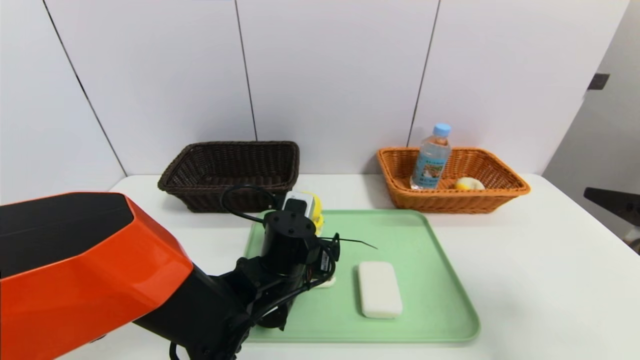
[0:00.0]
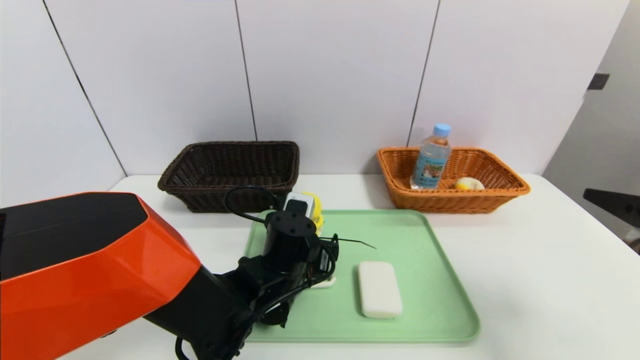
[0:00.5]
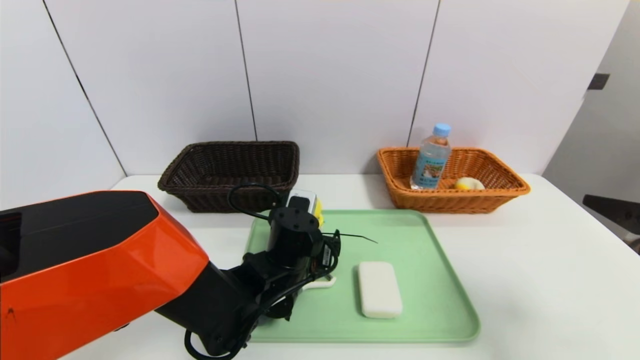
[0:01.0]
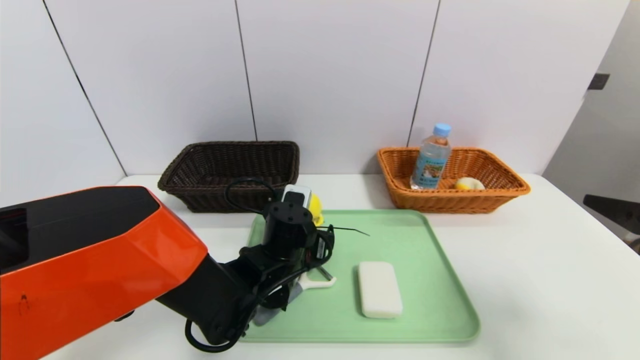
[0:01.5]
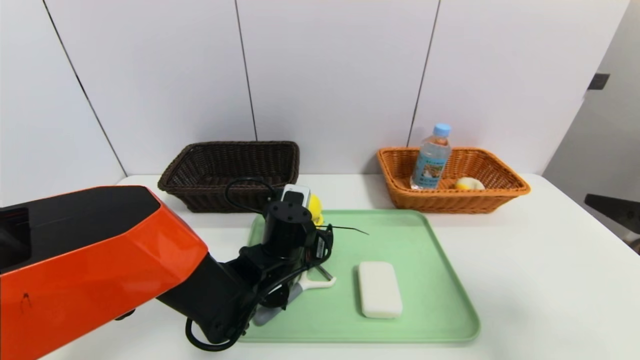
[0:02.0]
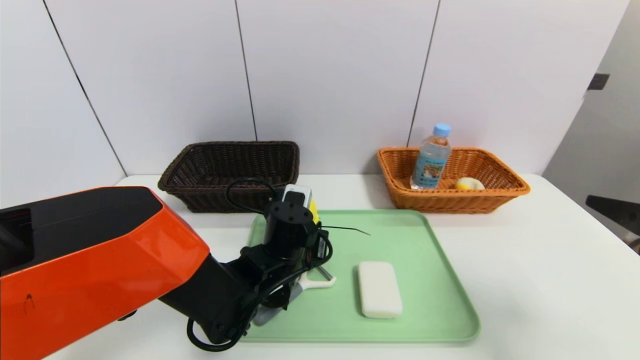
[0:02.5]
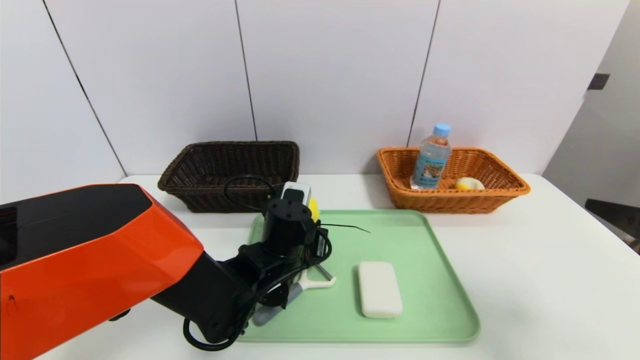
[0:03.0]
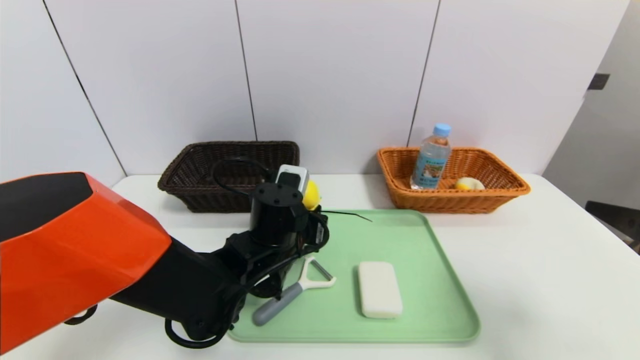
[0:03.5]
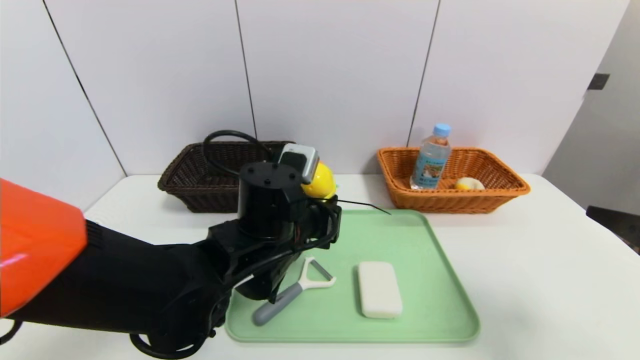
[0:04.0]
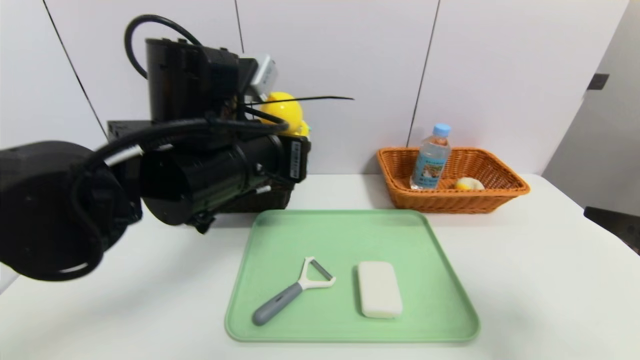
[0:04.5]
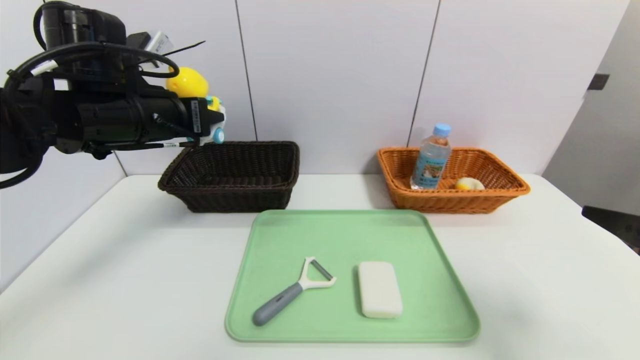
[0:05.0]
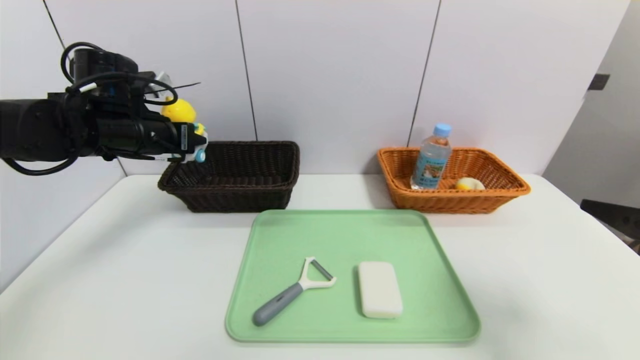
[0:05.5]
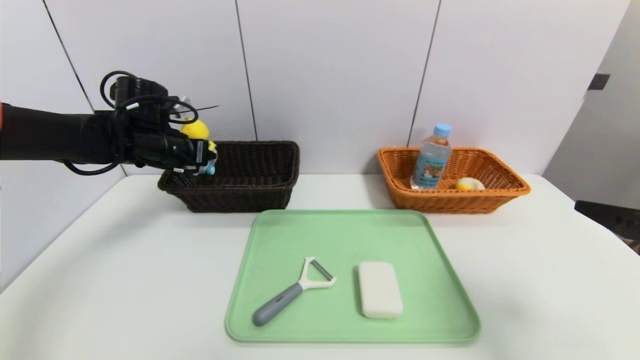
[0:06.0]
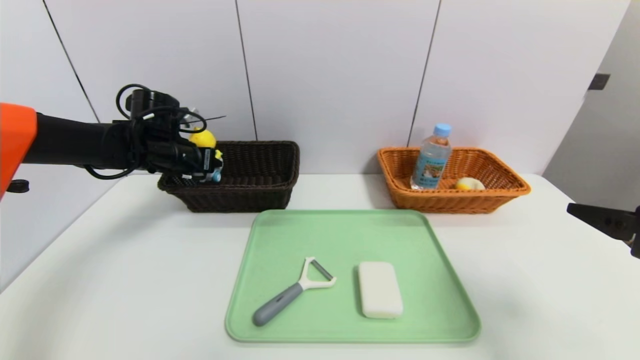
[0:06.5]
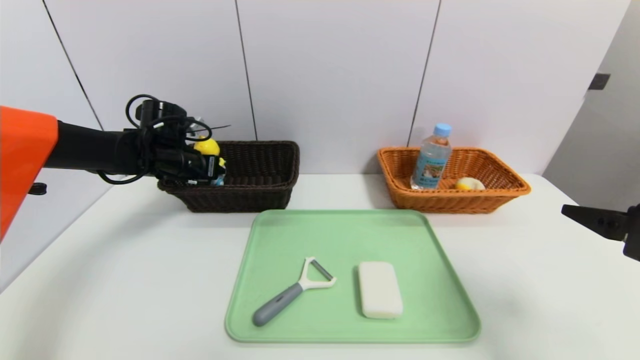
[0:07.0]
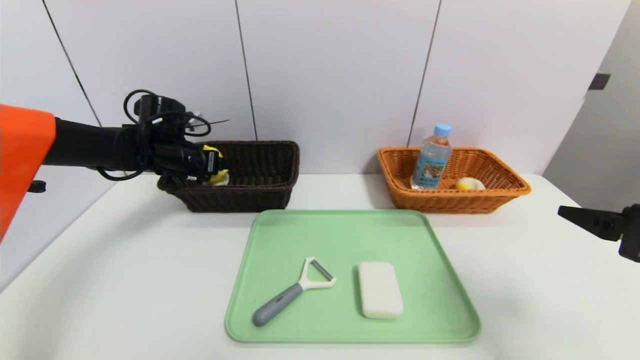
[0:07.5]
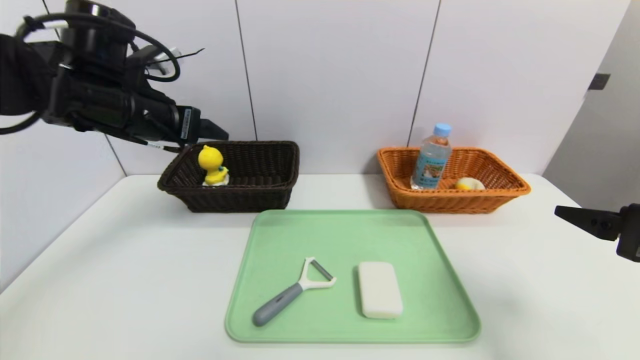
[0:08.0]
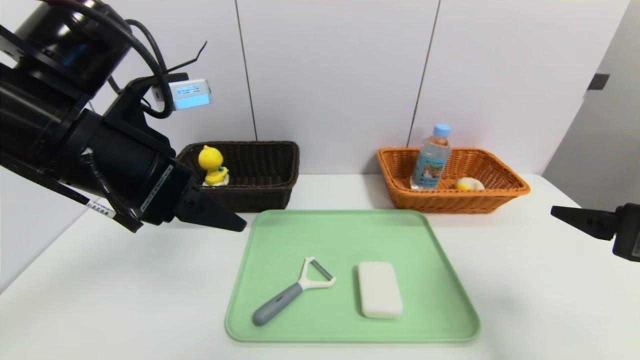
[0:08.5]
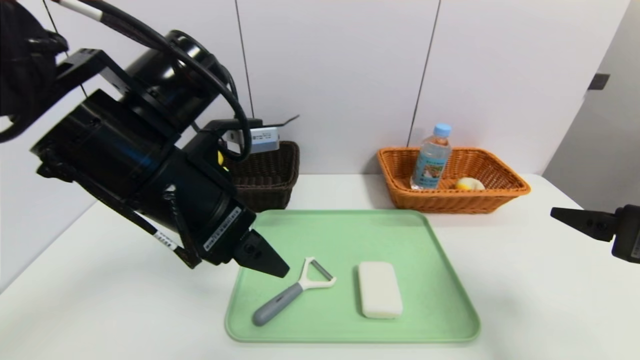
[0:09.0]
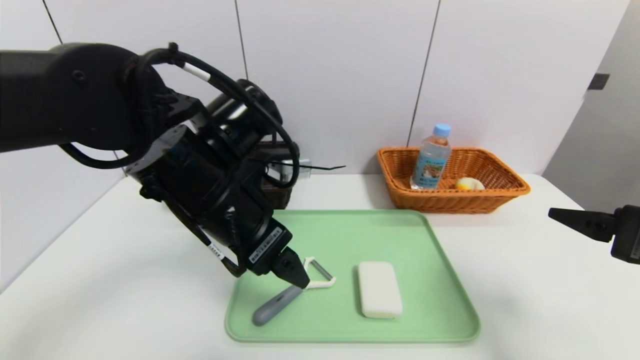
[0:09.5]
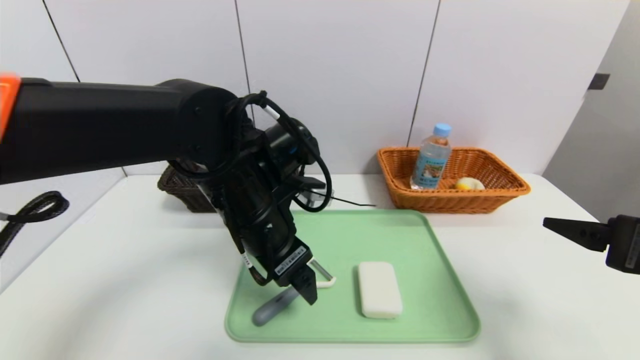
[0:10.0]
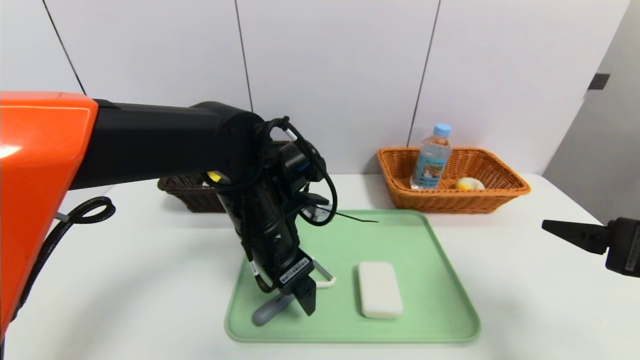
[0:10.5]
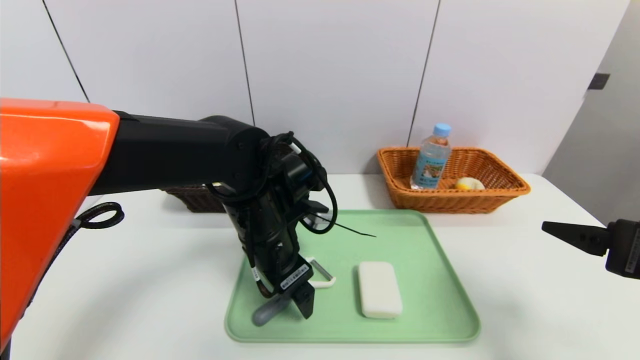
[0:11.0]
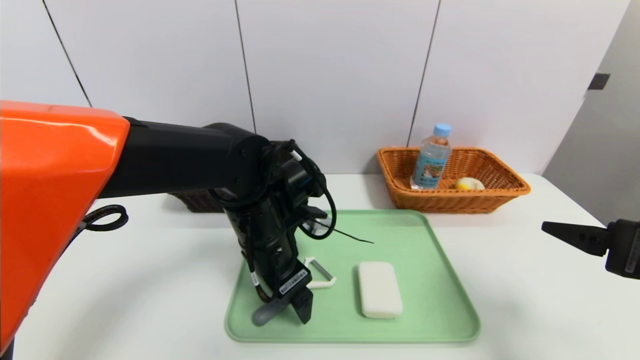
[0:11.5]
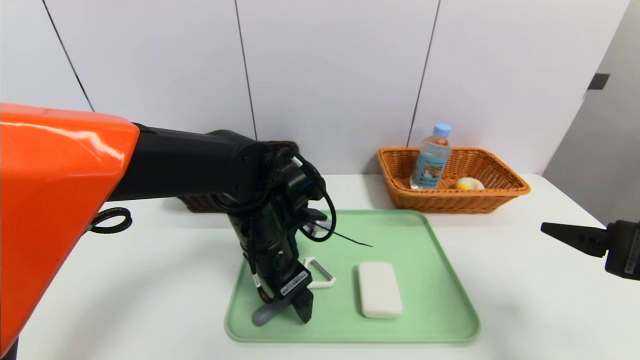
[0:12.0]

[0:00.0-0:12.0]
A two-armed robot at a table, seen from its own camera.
Task of the whole recording: place the food in the right basket with the right gripper, and place the non food items in the left basket with the left gripper.
Step, 0:00.0 to 0:07.5: Grasp the duck toys and put it in the left basket.
0:00.0 to 0:02.0: The grippers stay close to where they were, moving slightly.
0:02.0 to 0:04.0: The left gripper is displaced upward by approximately 10 cm, and closes.
0:04.0 to 0:06.0: The left gripper is displaced to the left and forward by about 25 cm.
0:06.0 to 0:08.0: The left gripper travels backward and upward by roughly 15 cm, and opens up.
0:08.0 to 0:10.0: The left gripper travels to the right and downward by approximately 20 cm.
0:10.0 to 0:12.0: The left gripper is displaced downward by approximately 5 cm.

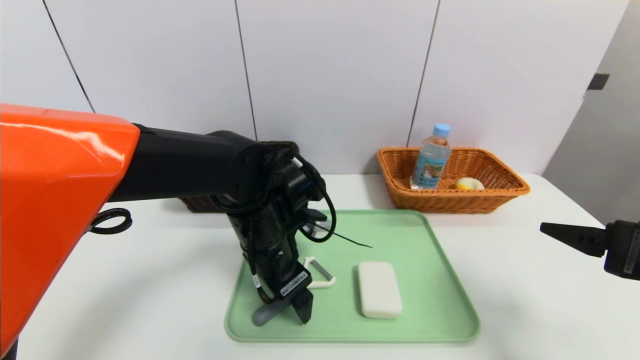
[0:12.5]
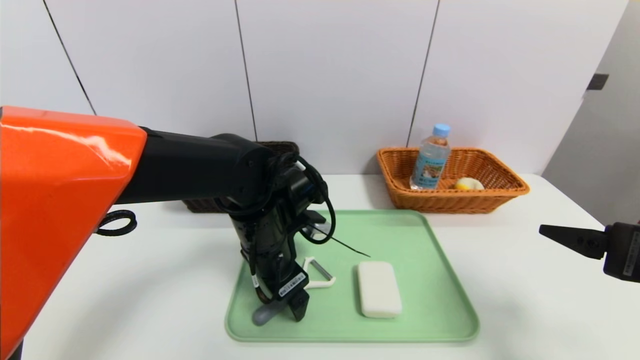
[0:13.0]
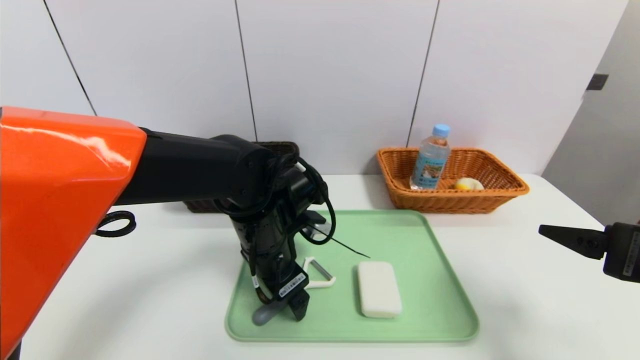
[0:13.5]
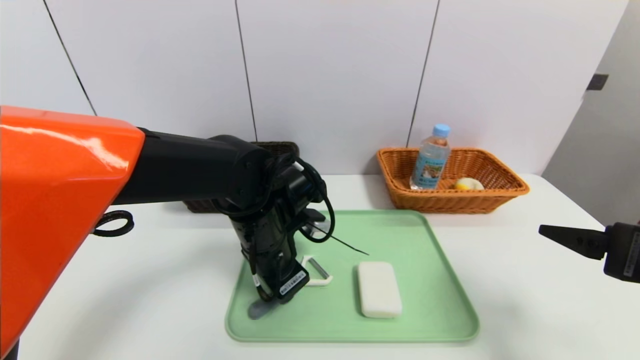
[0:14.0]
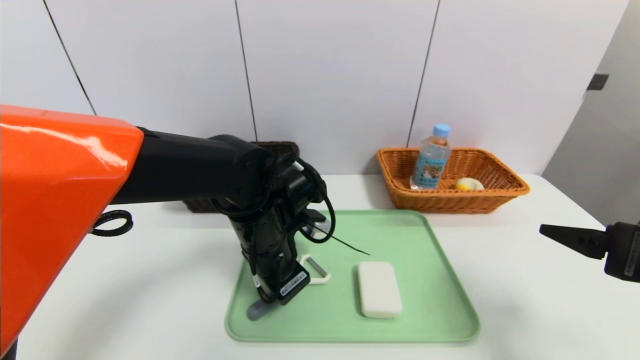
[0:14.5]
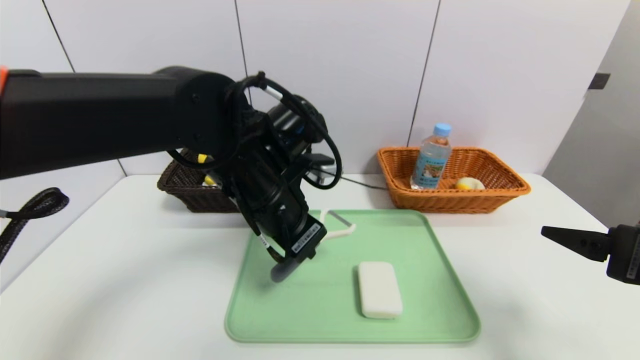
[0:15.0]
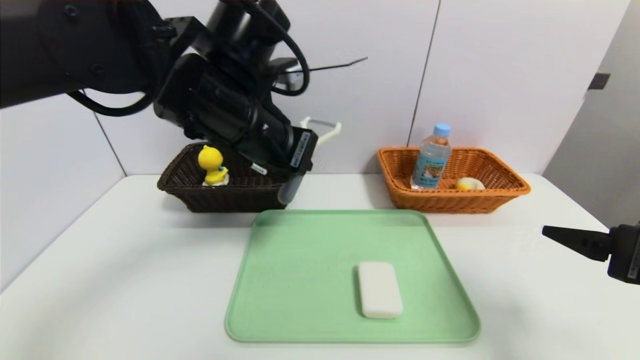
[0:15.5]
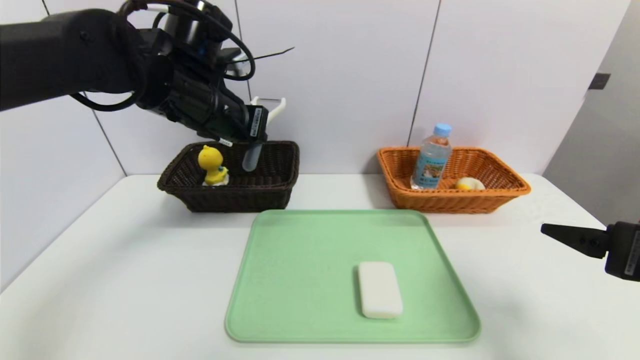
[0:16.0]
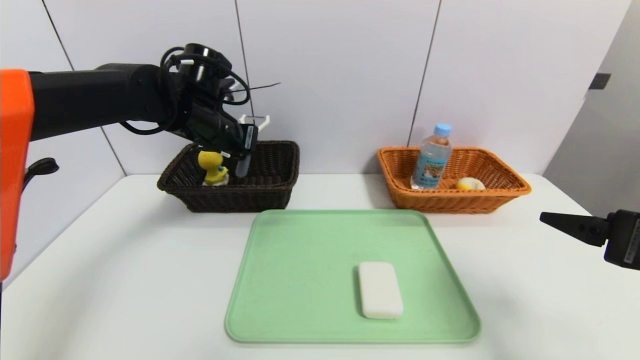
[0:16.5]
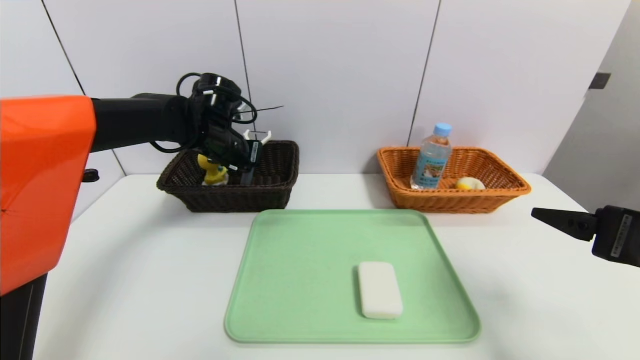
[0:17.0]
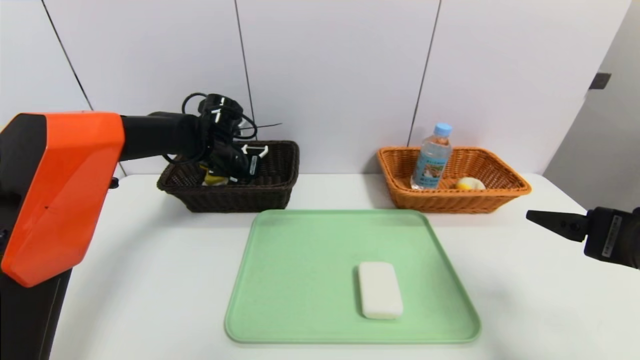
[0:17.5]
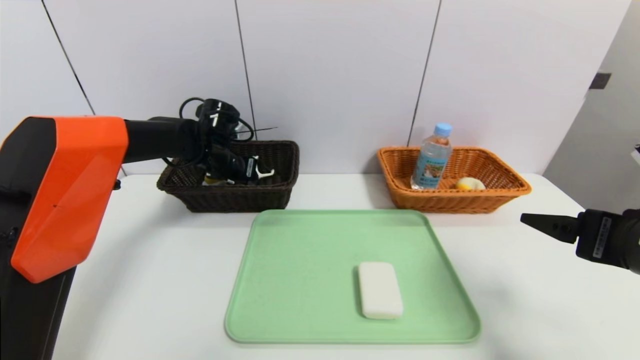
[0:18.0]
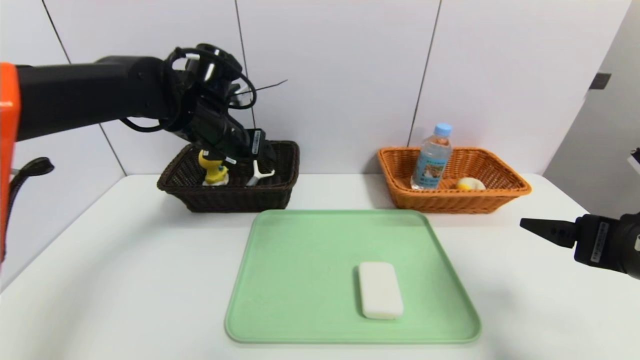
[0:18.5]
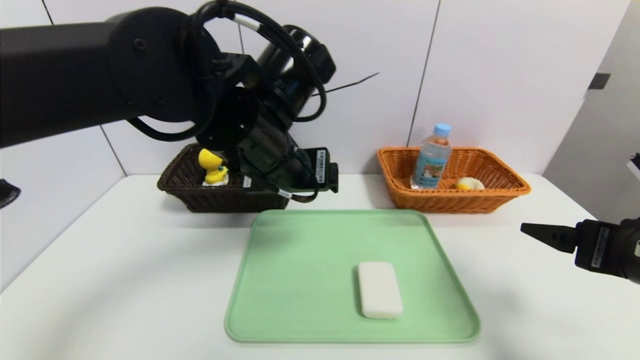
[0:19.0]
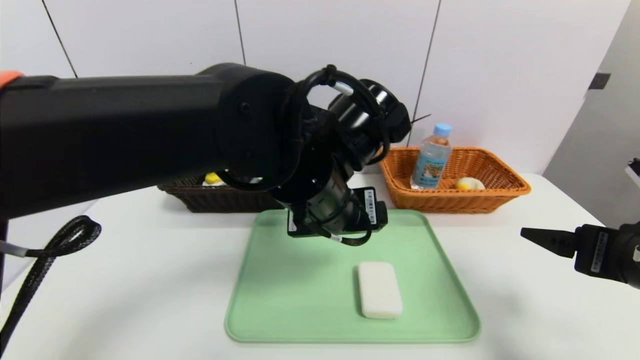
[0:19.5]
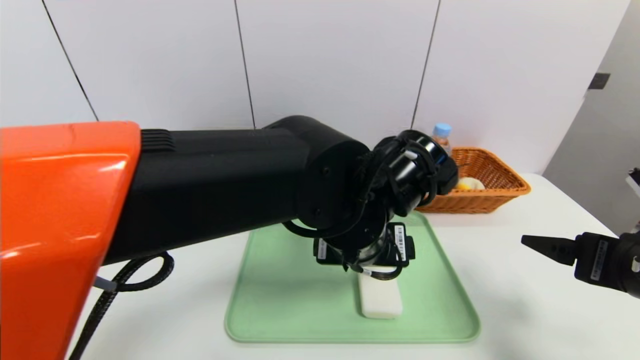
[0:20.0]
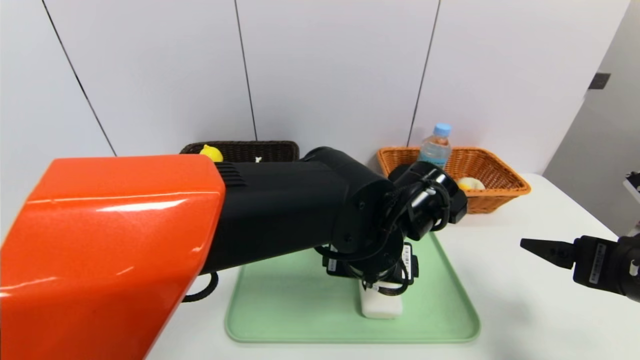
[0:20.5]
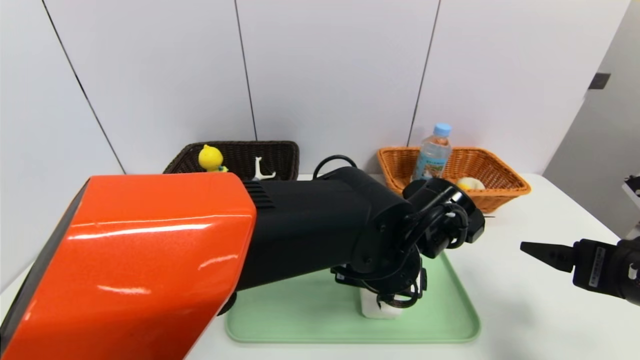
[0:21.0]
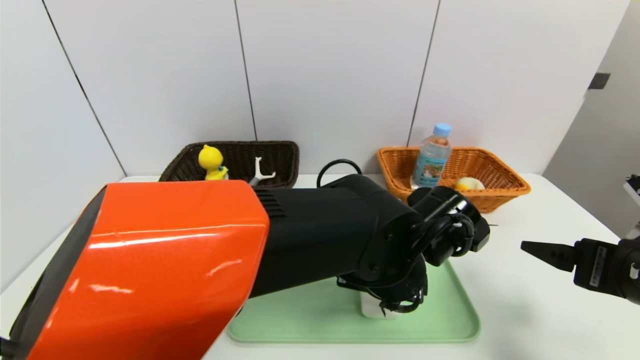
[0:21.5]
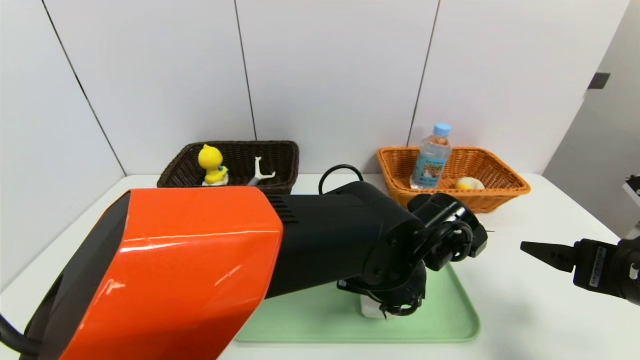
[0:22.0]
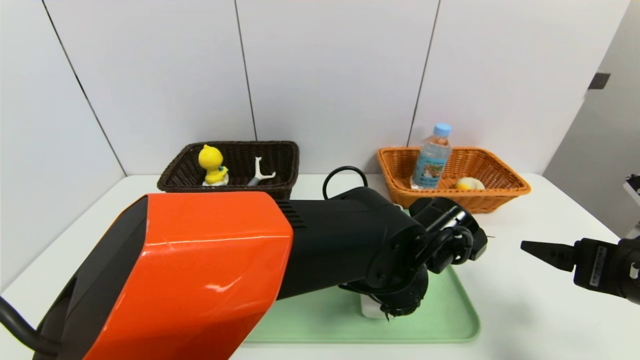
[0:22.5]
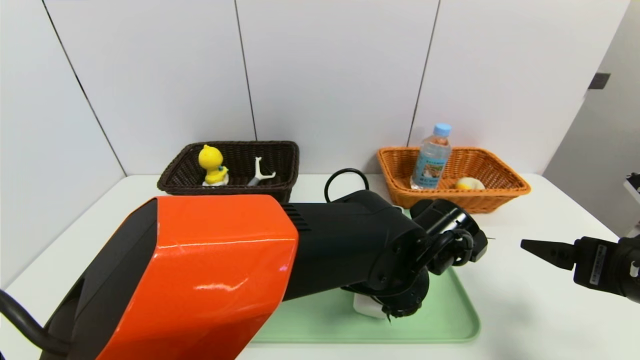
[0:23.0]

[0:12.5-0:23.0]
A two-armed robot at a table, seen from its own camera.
Task of the whole recording: place the food in the right basket with the right gripper, and place the non food items in the left basket with the left gripper.
Step, 0:12.5 to 0:18.0: Grasp the peeler and put it in the left basket.
0:12.5 to 0:14.5: The left gripper closes up.
0:14.5 to 0:16.5: The left gripper moves forward, upward and to the left, some 20 cm.
0:16.5 to 0:19.0: The left gripper moves backward and to the right, roughly 20 cm, and opens up.
0:19.0 to 0:21.0: The left gripper shifts approximately 15 cm to the right and downward.
0:21.0 to 0:23.0: The left gripper closes its fingers.
